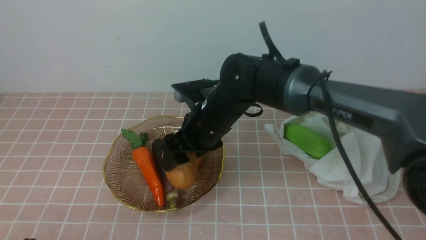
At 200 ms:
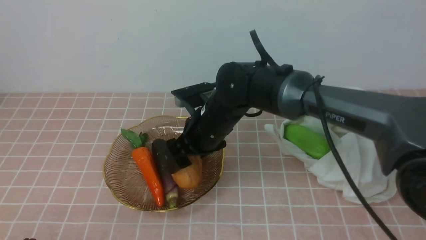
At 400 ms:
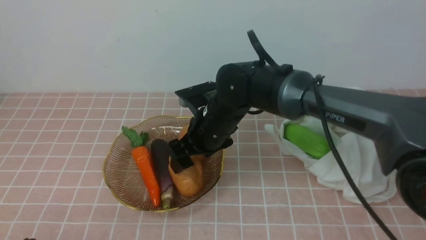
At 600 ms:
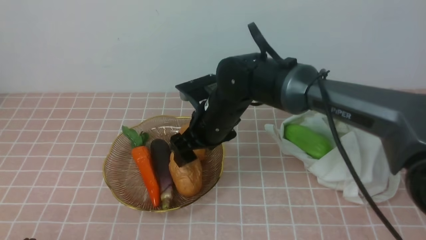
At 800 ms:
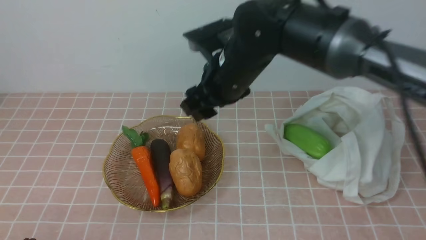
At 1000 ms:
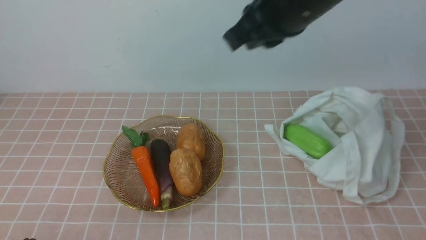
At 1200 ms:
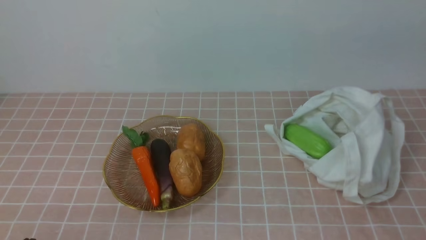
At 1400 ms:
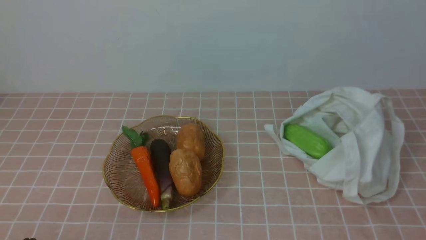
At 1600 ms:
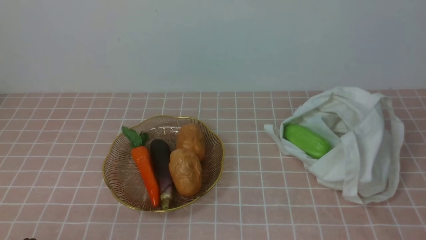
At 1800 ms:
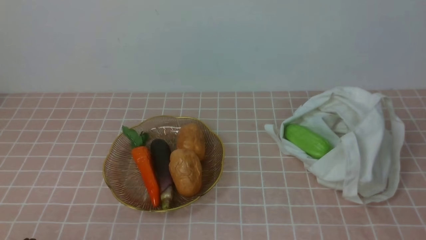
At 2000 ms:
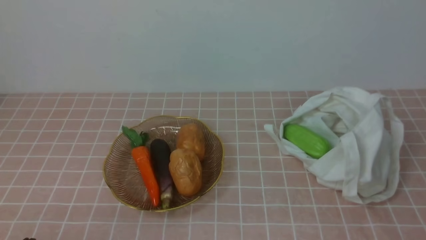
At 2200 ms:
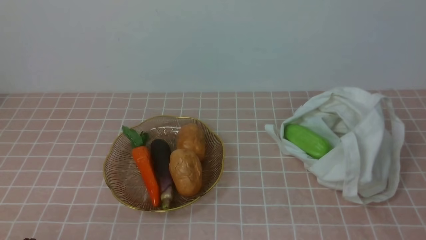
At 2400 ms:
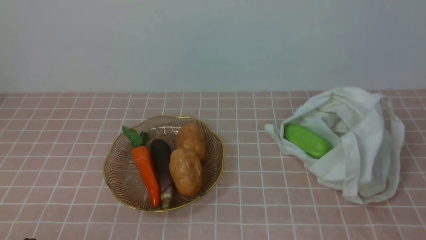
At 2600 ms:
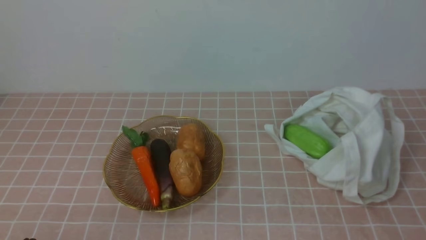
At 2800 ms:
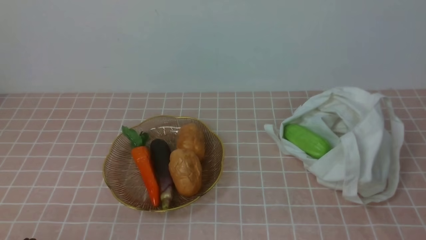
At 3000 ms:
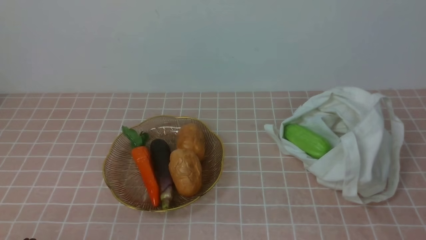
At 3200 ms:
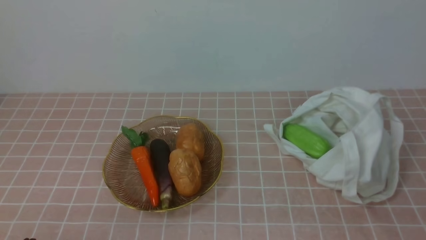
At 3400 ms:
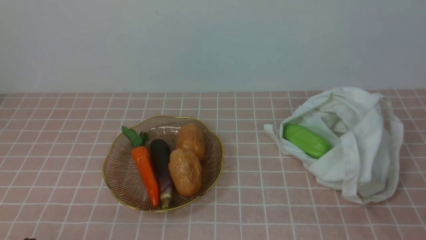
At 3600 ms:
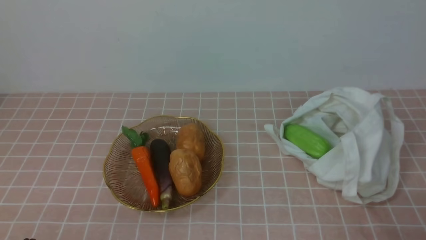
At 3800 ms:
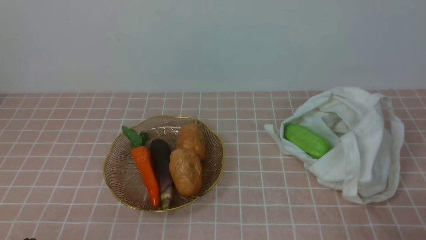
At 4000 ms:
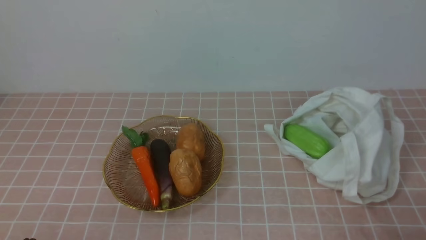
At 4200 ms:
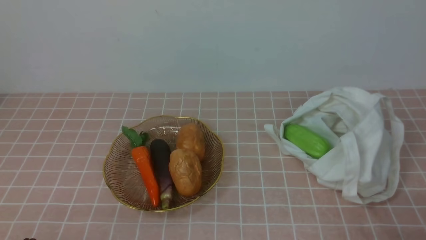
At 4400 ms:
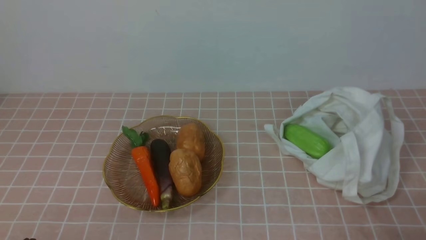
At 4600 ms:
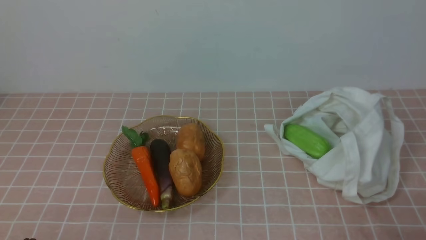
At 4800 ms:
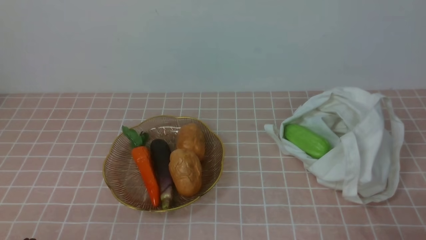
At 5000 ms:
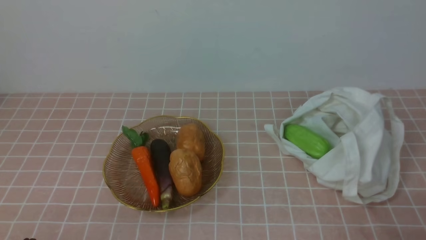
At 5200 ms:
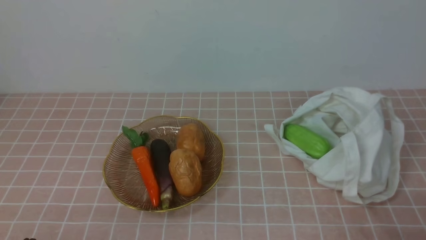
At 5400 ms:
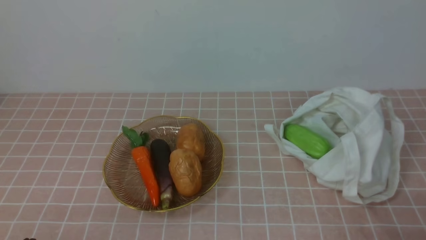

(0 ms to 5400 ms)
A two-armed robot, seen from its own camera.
Task of the whole recording: take vegetables from bag on pink coffee tablecloth place on plate.
0 ms - 1400 ms: The right gripper goes approximately 50 cm upward, to the right and backward, and closes up.
4000 ms - 5400 ms: The two grippers keep their place.

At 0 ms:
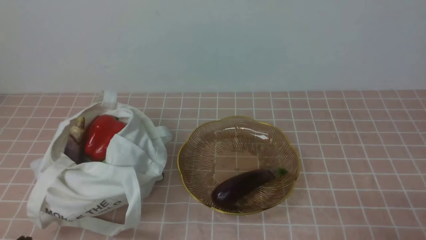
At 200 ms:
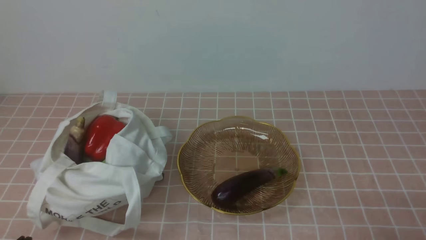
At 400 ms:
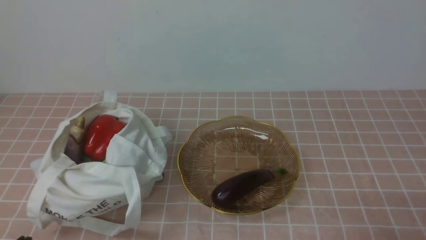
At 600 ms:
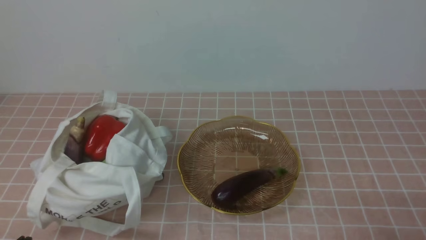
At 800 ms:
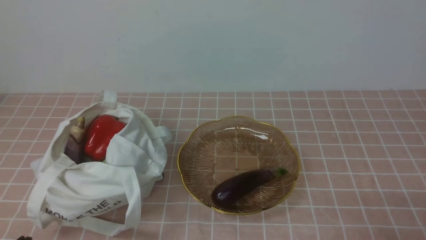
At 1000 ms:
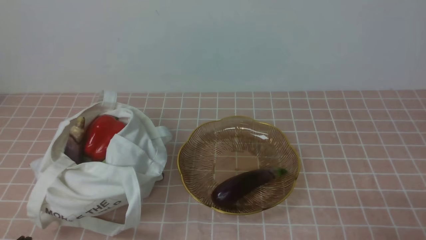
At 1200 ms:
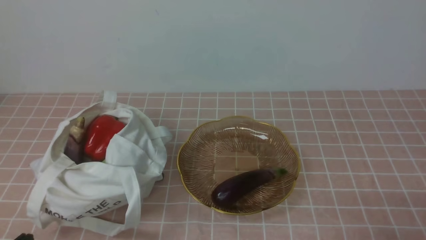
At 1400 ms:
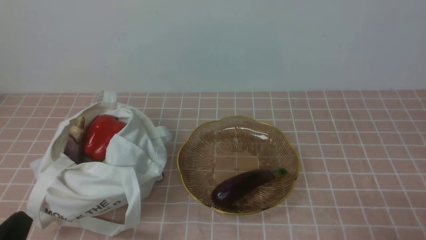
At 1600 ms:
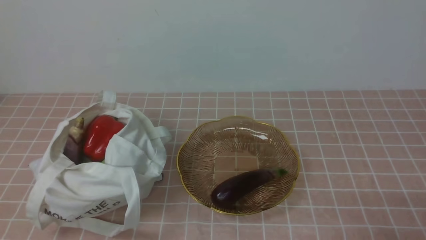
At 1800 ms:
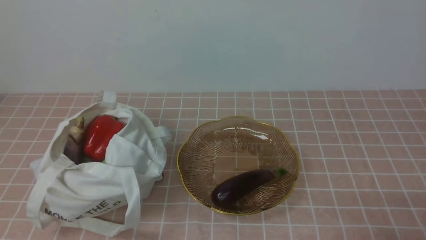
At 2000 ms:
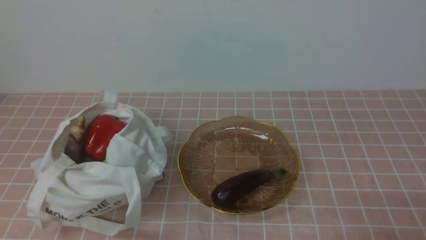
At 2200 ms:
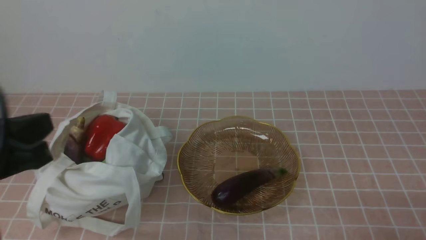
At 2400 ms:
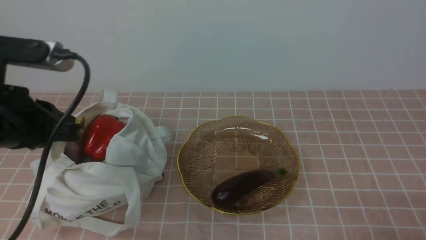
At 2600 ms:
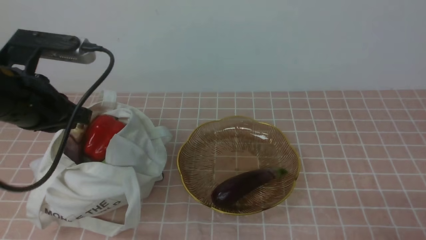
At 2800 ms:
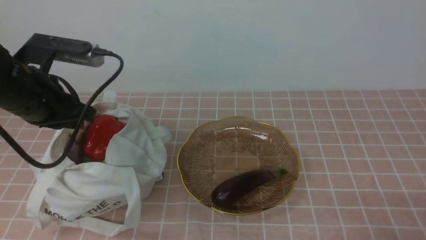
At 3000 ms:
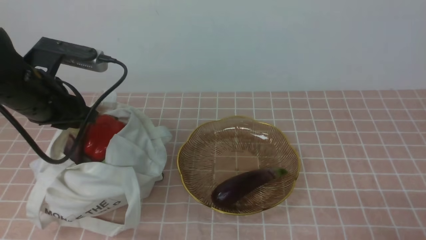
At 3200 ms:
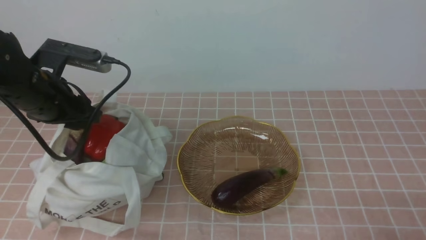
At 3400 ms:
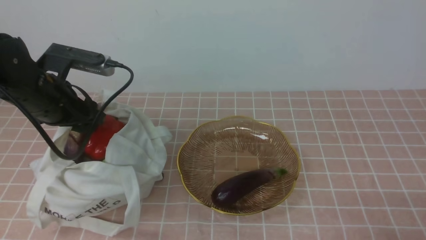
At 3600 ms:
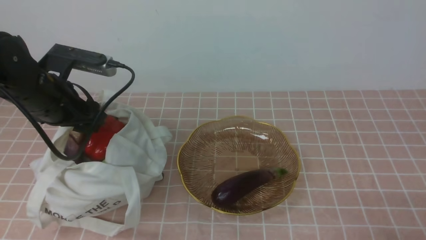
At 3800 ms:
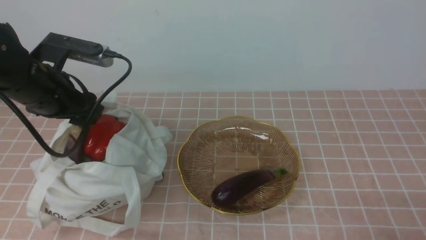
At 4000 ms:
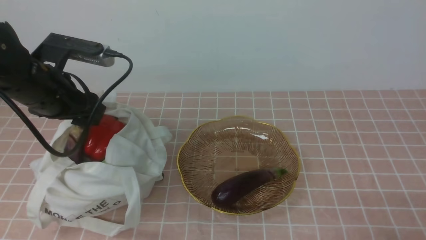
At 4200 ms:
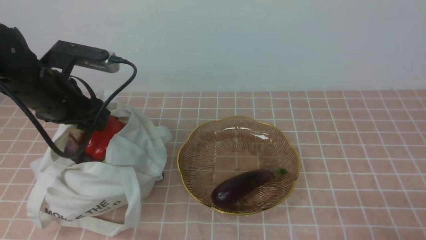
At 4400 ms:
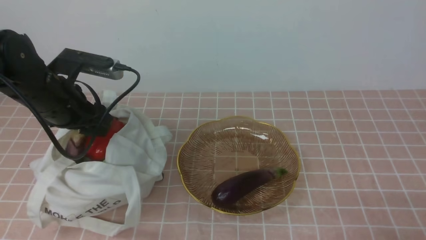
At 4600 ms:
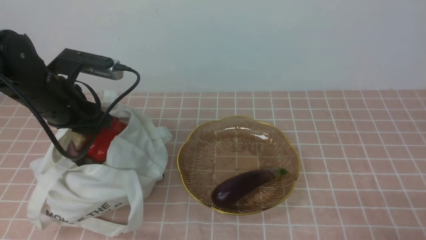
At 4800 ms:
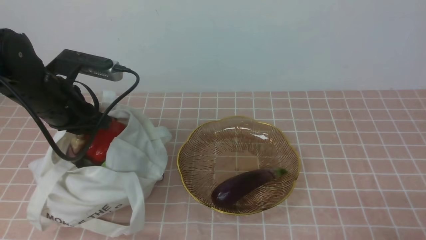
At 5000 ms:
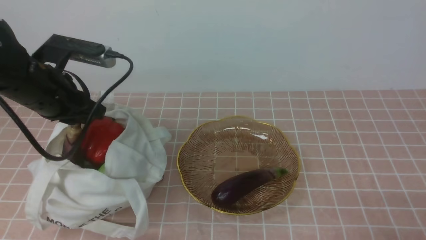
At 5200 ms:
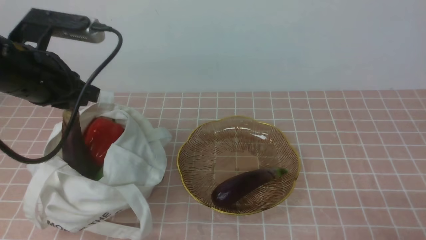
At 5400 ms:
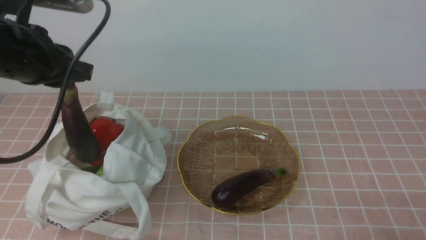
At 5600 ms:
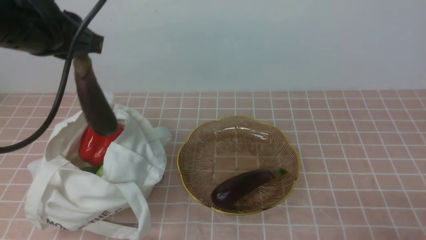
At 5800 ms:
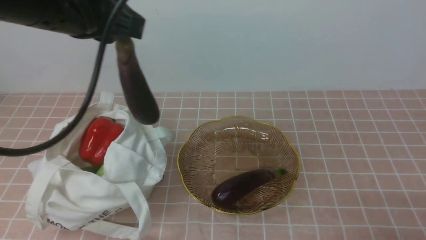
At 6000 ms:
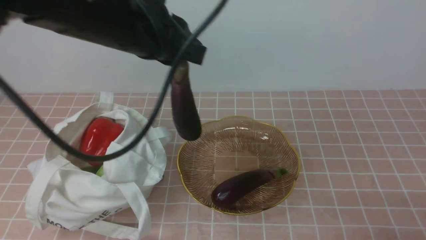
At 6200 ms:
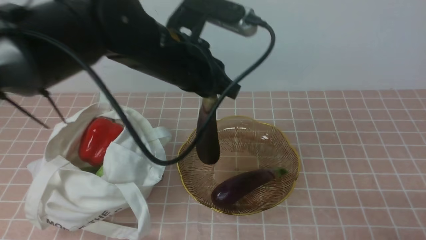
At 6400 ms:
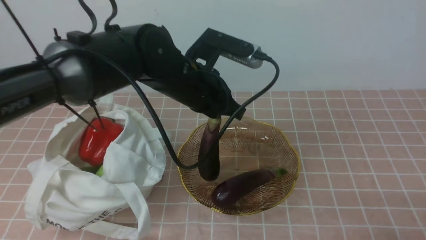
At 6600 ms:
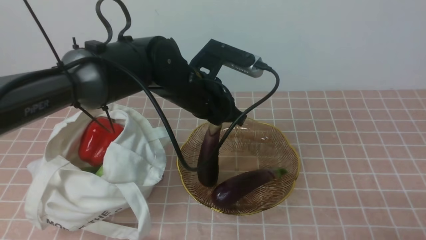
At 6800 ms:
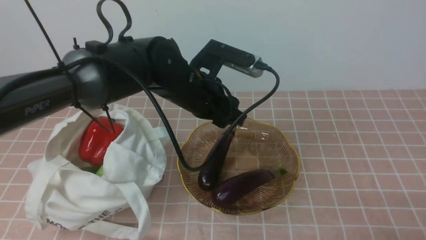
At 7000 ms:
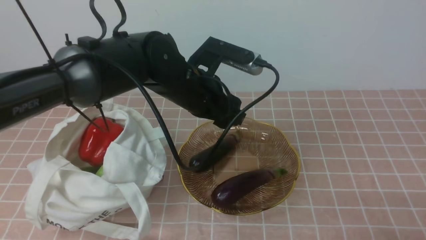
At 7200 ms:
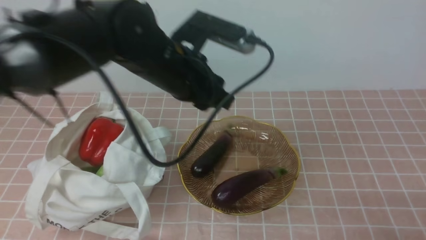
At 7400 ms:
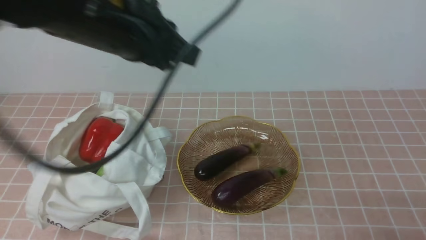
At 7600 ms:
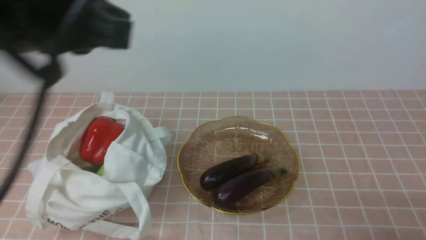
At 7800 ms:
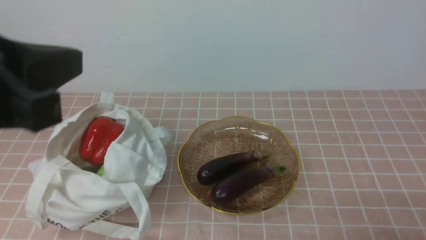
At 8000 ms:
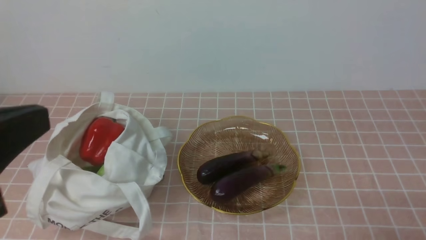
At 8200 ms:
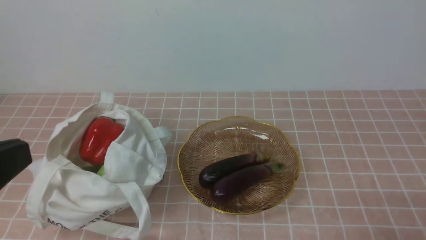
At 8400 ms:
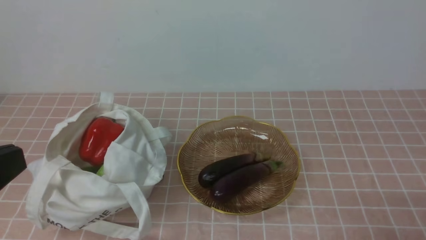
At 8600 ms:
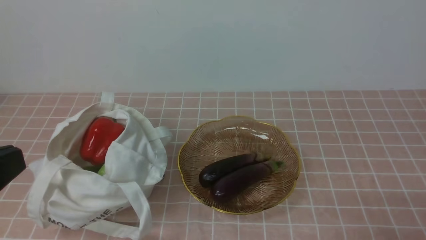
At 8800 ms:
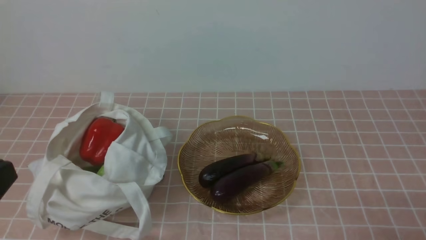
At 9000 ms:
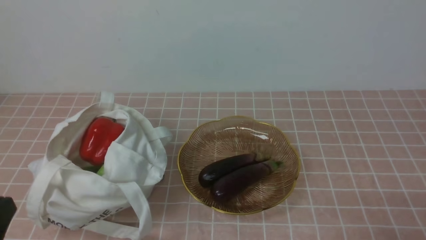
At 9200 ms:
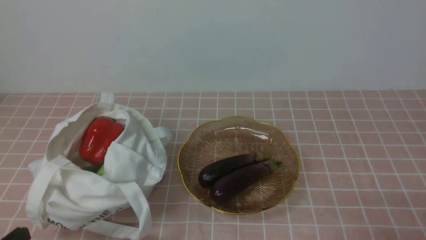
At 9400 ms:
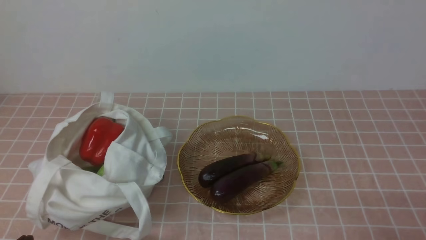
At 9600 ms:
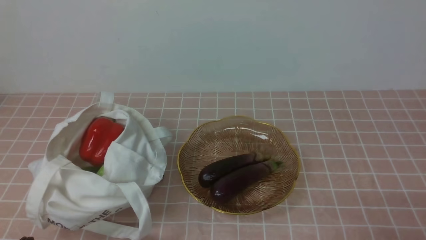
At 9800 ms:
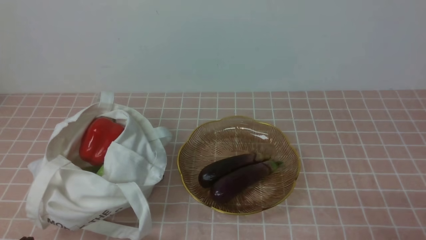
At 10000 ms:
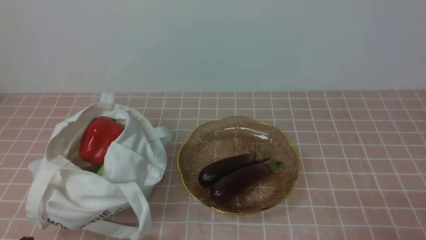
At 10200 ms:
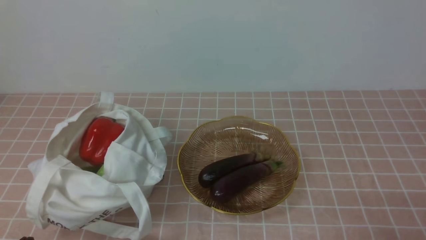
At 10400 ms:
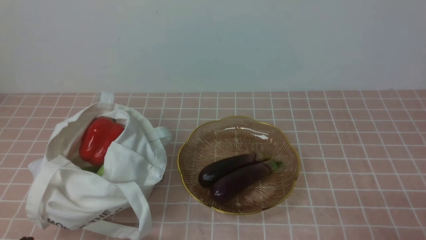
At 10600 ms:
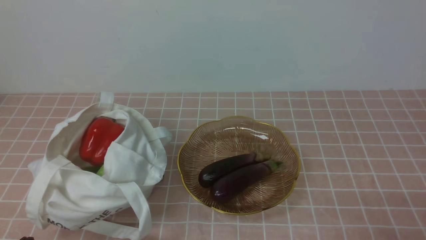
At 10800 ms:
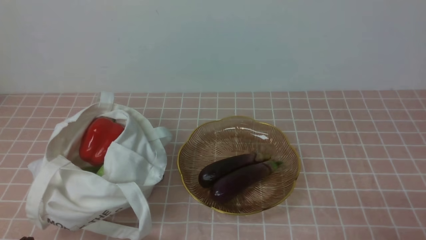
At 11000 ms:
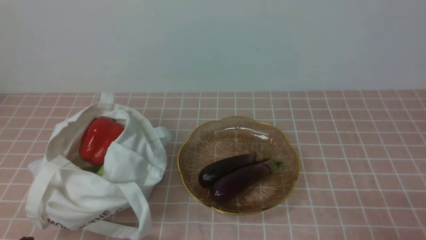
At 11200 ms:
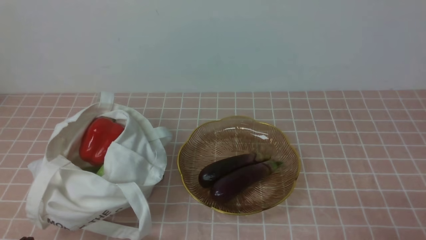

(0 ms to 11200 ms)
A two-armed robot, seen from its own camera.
Task of the whole recording: take vegetables from bag on pink coffee tablecloth place on plate.
Step, 0 ms - 4600 ms: Grasp the eggplant with left gripper.
Step, 4800 ms - 7200 ms: Place the eggplant on the plate with left gripper.
1600 ms - 3200 ms: The left gripper moves forward, some 25 cm, and opens its fingers.
3200 ms - 4800 ms: The left gripper opens and closes again.
4800 ms - 6400 ms: The left gripper is displaced to the right by approximately 20 cm.
6400 ms - 8000 ms: The left gripper heads backward, to the left and upward, covering roughly 30 cm, and opens and closes again.
8000 ms - 9600 ms: The left gripper moves downward, about 25 cm.
9600 ms - 11200 ms: Neither gripper changes place.
